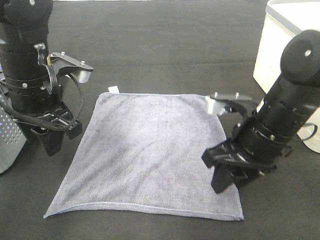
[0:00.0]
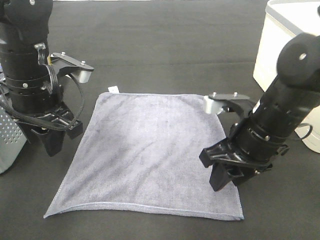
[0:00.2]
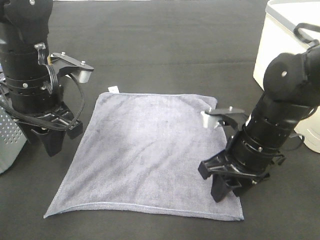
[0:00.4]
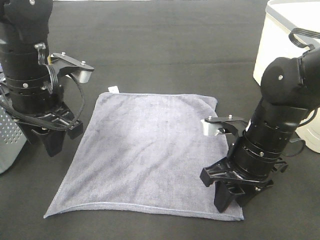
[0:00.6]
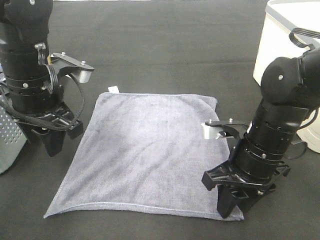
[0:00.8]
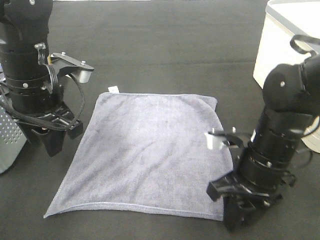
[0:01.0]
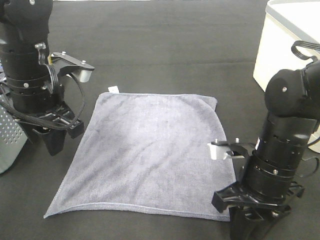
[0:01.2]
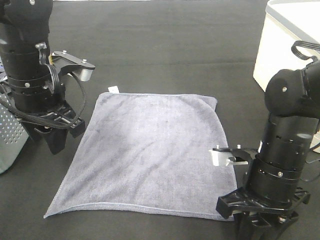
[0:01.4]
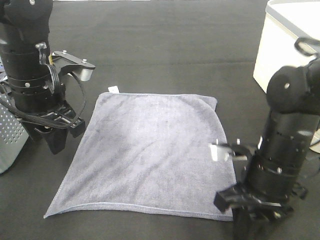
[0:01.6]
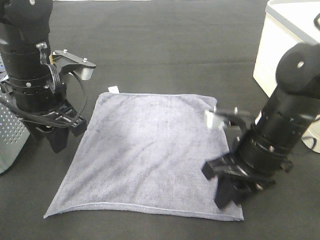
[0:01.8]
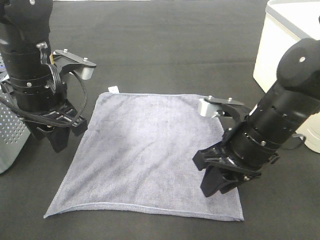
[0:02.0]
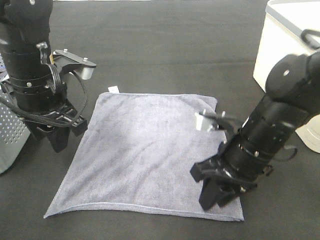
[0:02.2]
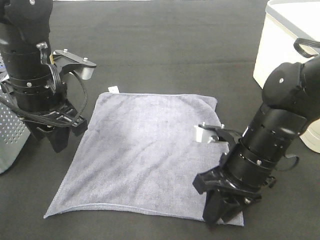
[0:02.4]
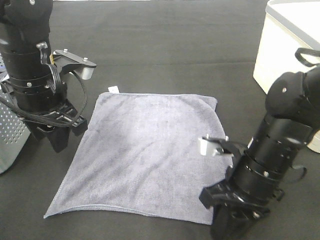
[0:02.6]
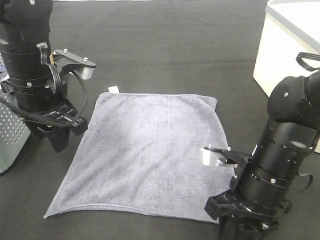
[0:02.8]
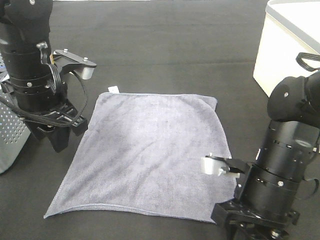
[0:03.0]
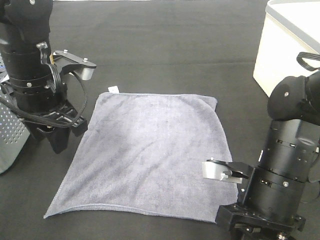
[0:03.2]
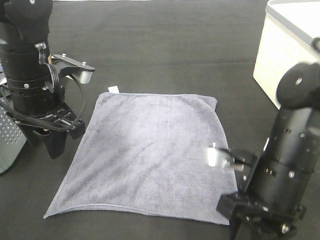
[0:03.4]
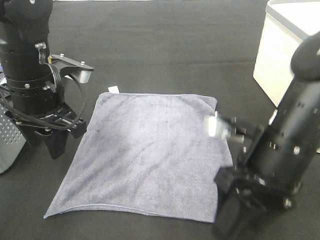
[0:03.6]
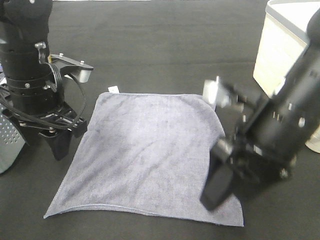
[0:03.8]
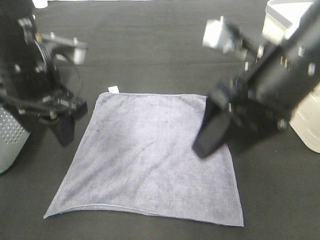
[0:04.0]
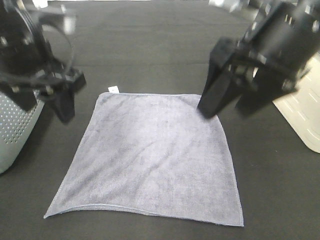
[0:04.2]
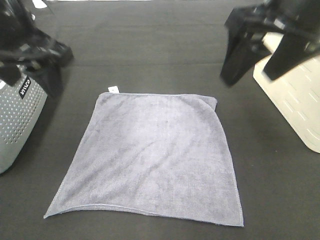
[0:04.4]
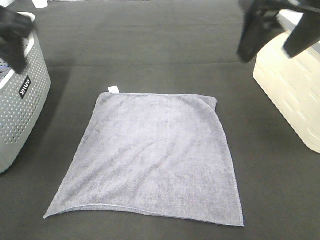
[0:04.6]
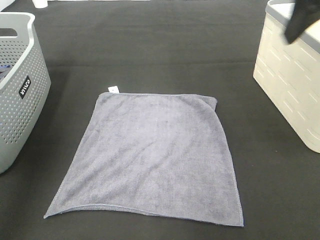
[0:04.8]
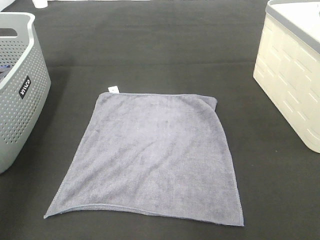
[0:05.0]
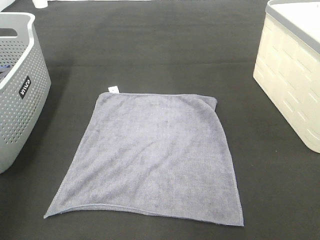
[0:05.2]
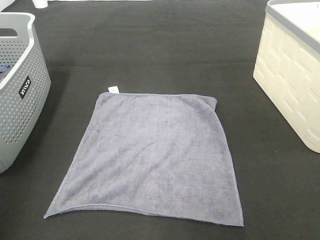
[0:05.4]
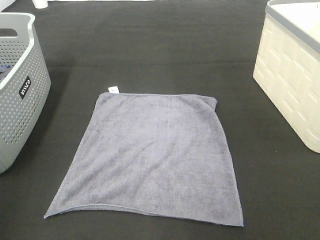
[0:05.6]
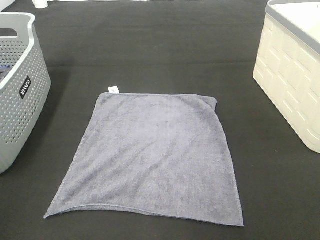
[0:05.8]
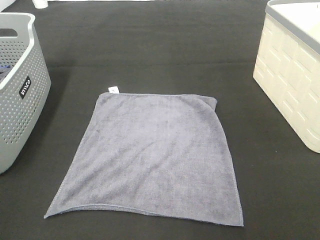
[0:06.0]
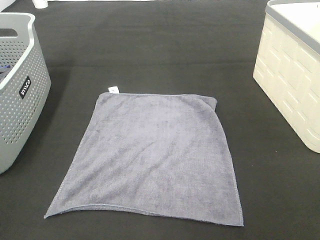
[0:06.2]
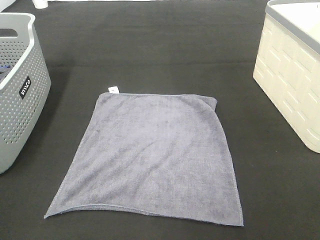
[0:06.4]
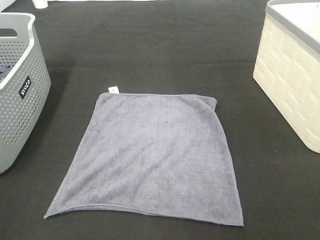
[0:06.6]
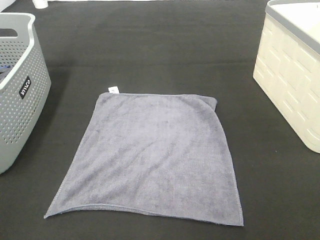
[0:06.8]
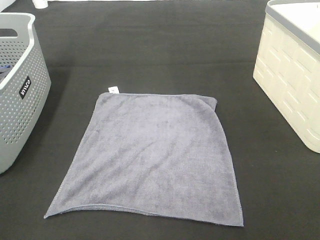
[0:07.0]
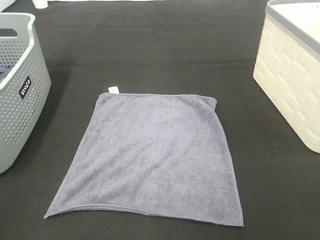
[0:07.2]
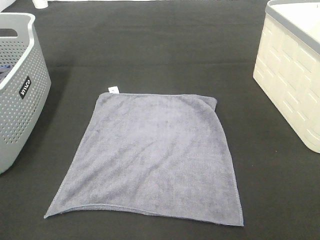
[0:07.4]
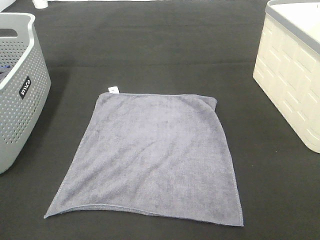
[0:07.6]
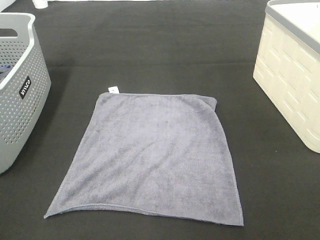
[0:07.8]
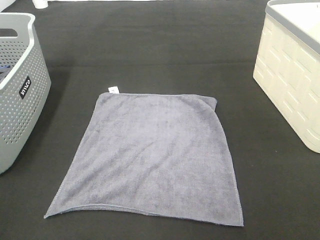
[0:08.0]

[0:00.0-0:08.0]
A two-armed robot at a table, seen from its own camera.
Task of the whole recording: Remove the towel and place it.
0:01.6 to 0:03.2: The grippers stay close to where they were, moving slightly.
0:03.2 to 0:04.8: The left gripper is displaced upward and to the left by some 20 cm. Meanwhile the right gripper goes approximately 25 cm upward, and opens its fingers.
0:04.8 to 0:06.4: The two grippers go about 30 cm backward.

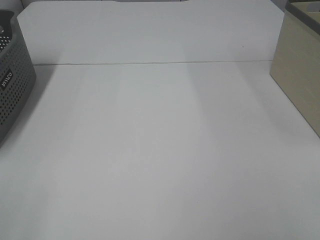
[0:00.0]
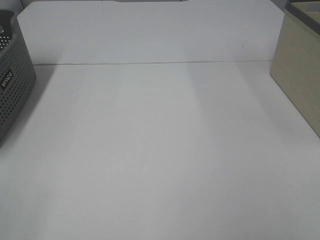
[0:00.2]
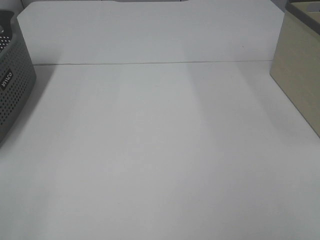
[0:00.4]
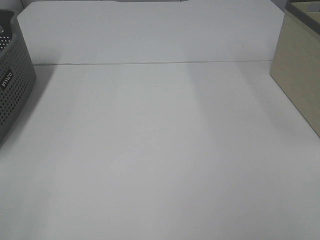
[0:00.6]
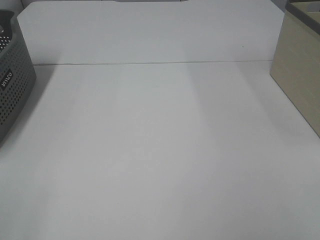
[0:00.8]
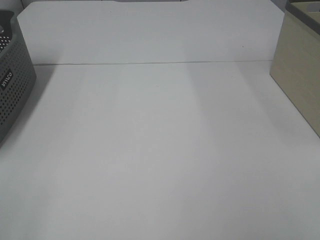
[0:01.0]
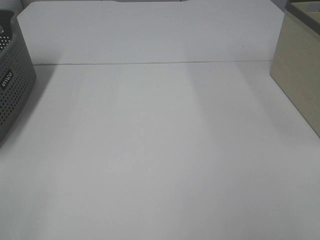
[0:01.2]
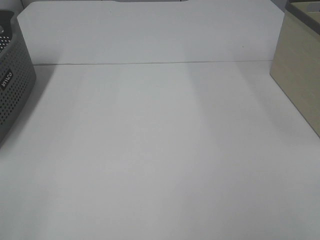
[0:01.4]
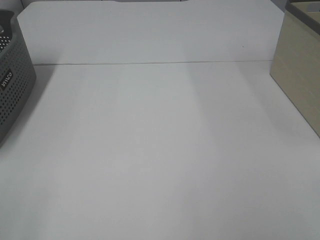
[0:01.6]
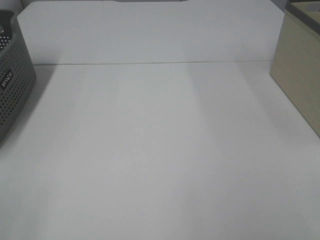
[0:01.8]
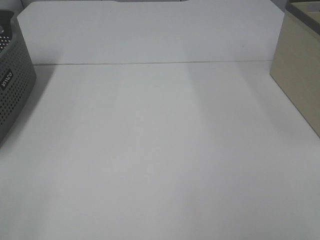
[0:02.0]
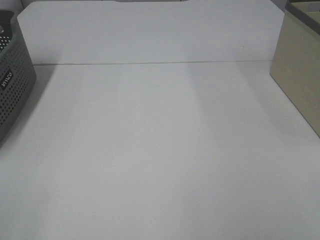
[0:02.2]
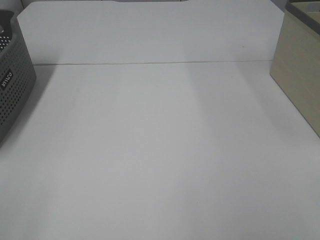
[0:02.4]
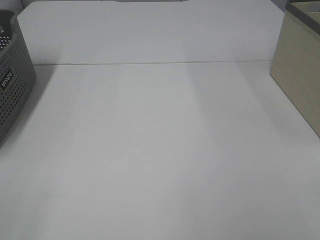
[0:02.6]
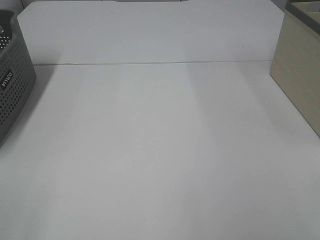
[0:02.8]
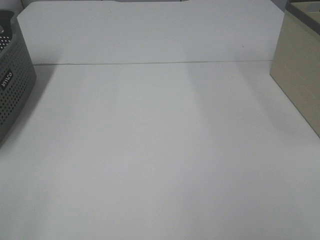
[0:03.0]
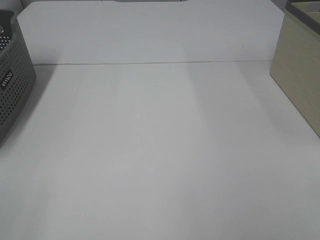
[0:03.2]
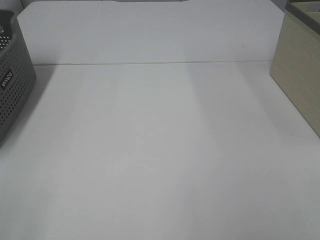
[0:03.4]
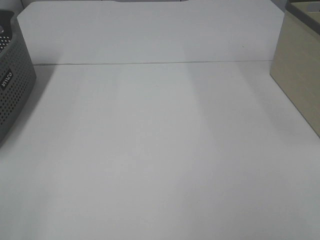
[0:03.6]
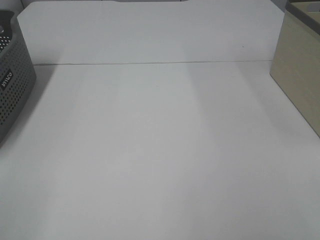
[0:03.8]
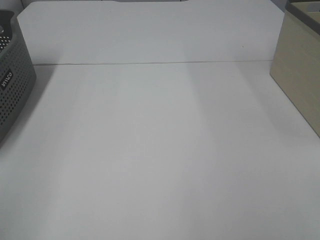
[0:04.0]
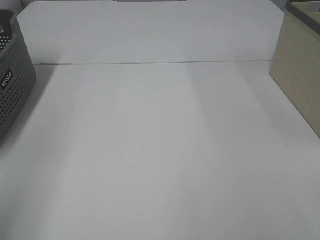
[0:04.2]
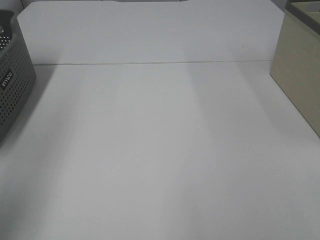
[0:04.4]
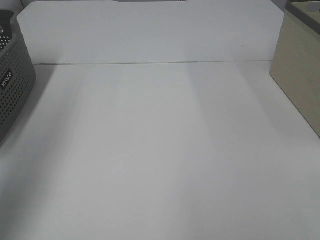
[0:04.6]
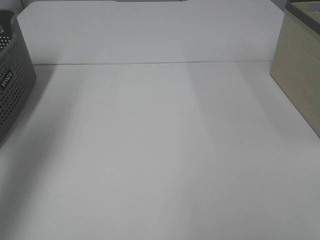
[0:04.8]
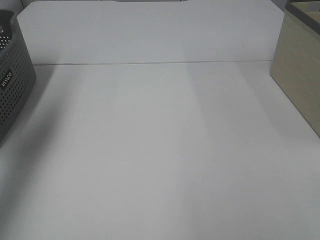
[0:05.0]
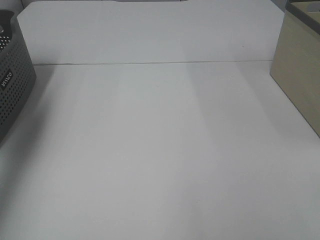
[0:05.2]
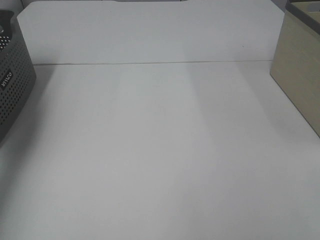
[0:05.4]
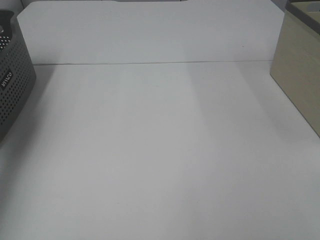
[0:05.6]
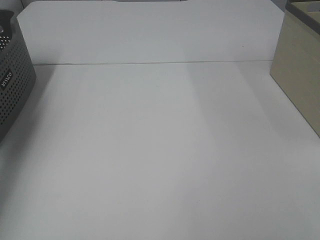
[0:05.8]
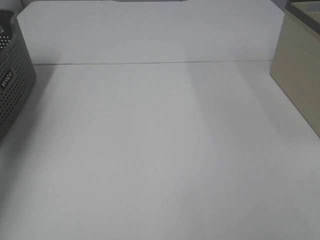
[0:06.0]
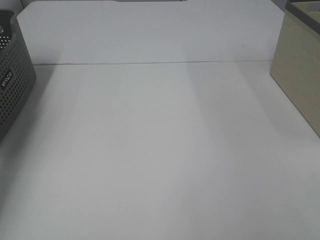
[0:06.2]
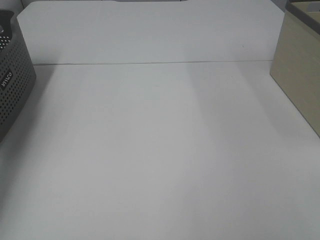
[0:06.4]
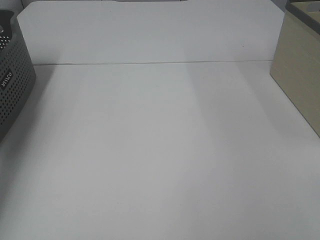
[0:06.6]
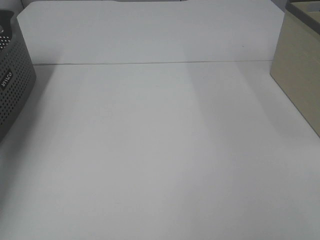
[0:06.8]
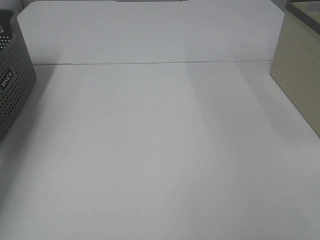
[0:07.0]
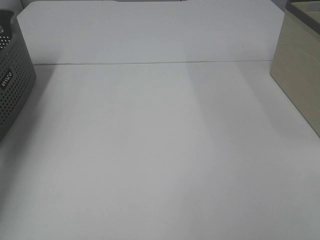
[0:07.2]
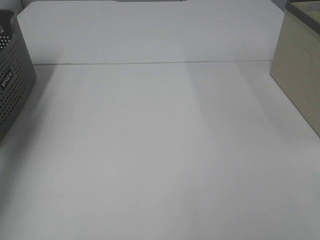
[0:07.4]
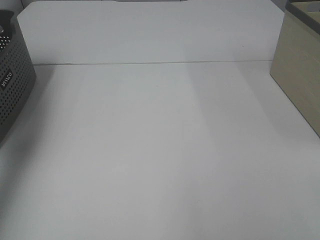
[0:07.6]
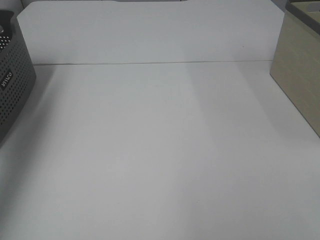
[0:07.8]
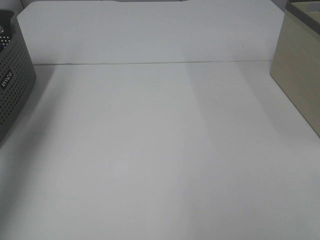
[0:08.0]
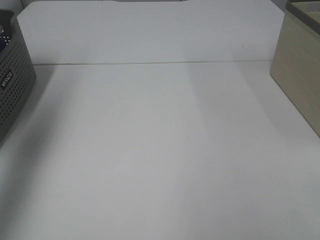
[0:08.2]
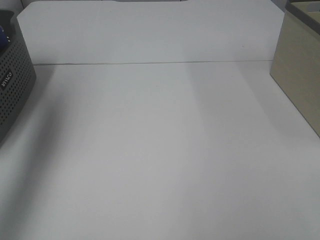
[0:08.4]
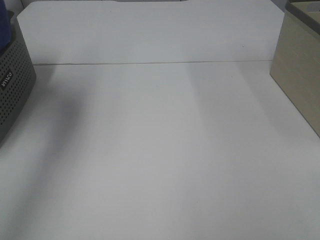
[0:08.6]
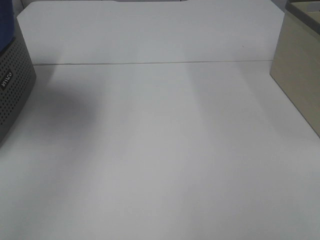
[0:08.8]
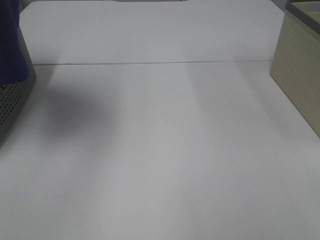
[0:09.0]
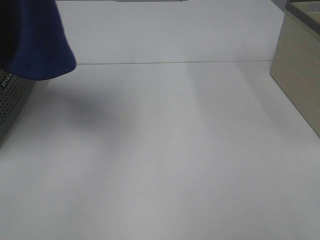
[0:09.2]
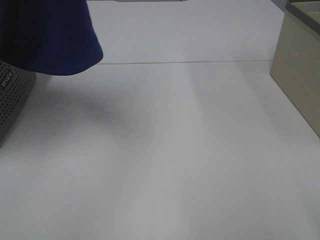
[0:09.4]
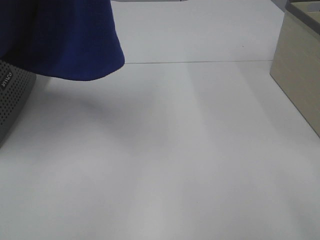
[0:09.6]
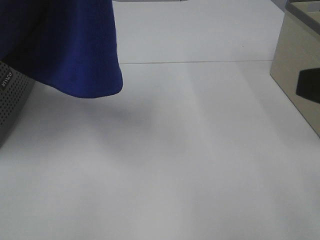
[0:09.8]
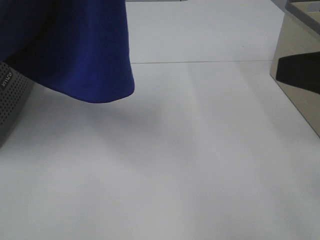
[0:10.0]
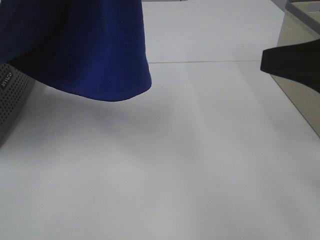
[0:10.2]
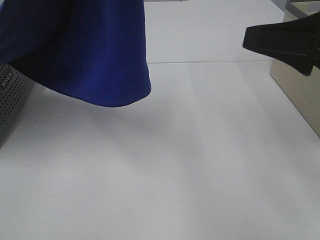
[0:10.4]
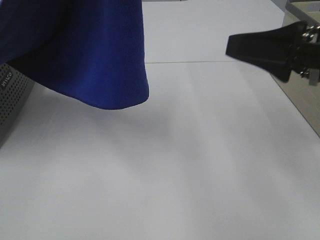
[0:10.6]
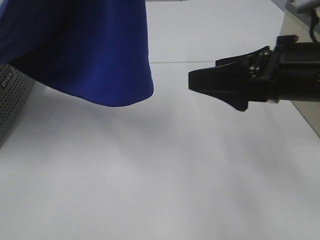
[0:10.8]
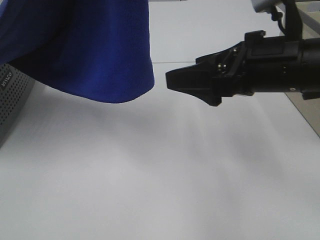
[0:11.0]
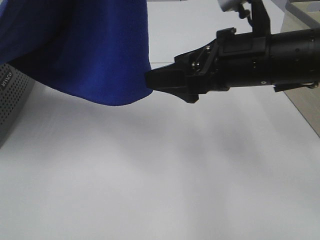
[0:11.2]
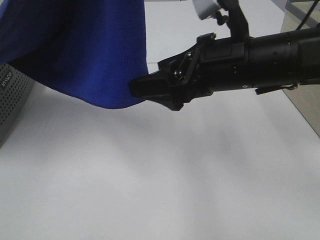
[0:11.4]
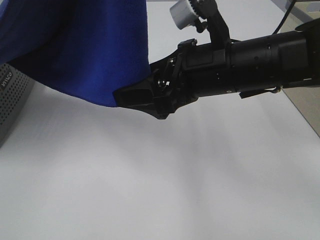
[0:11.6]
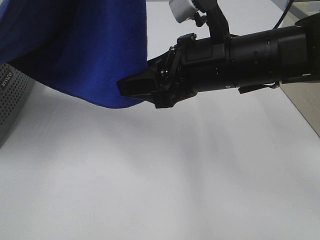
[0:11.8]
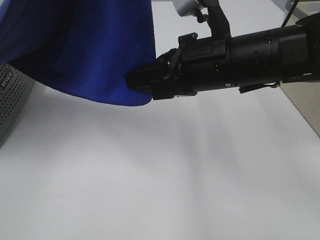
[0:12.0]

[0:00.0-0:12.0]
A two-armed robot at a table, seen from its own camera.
Task of the whole recording: Remove the towel and place it.
0:00.0 to 0:03.0: Both grippers stay put.
0:03.0 to 0:04.4: The left gripper goes about 15 cm forward and upward.
0:04.4 to 0:06.0: The left gripper moves forward and downward, roughly 35 cm.
0:07.6 to 0:09.0: The left gripper heads to the right, upward and backward, covering some 25 cm.
0:09.0 to 0:10.4: The right gripper shifts about 20 cm forward. The left gripper heads to the right, covering about 10 cm.
0:10.4 to 0:12.0: The right gripper moves to the left, approximately 15 cm, and closes.

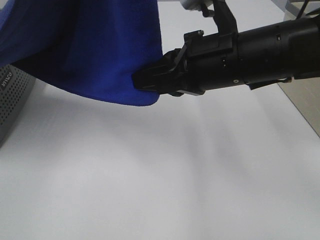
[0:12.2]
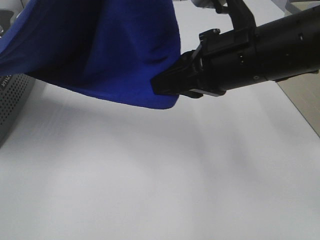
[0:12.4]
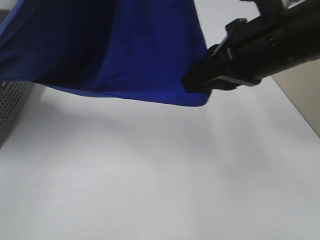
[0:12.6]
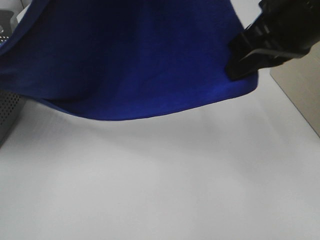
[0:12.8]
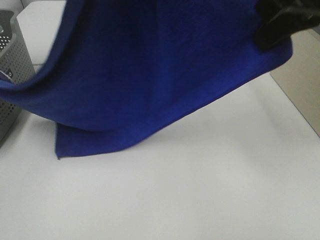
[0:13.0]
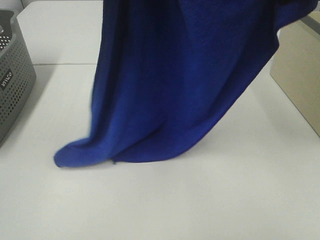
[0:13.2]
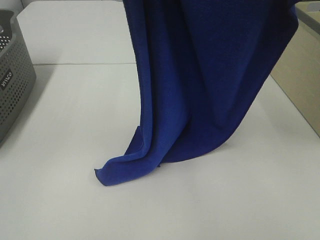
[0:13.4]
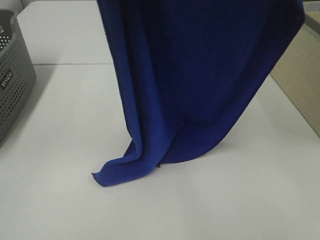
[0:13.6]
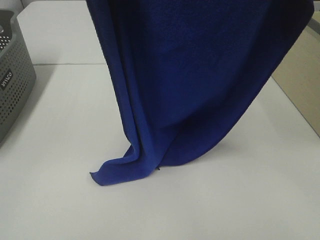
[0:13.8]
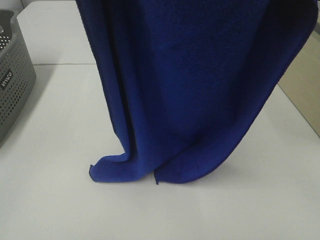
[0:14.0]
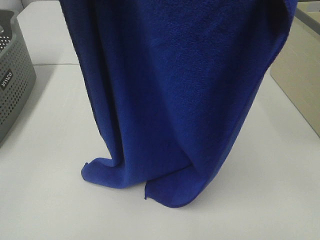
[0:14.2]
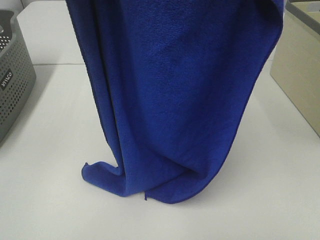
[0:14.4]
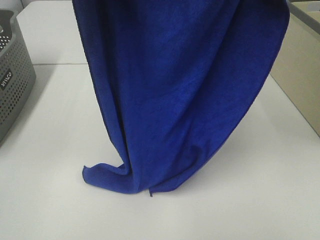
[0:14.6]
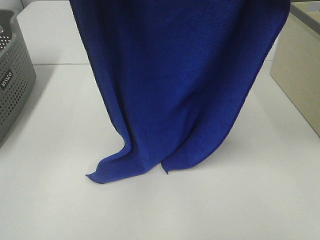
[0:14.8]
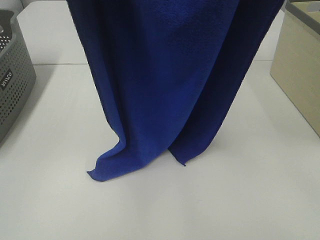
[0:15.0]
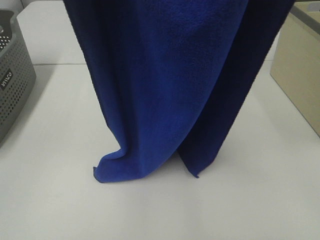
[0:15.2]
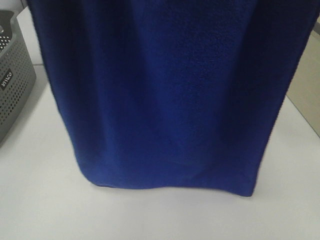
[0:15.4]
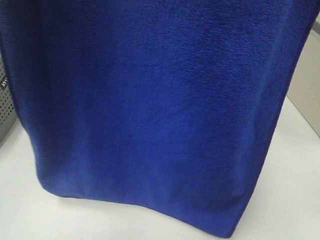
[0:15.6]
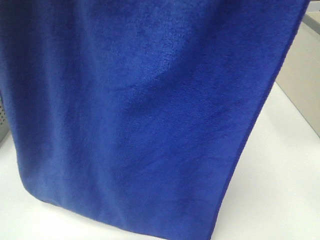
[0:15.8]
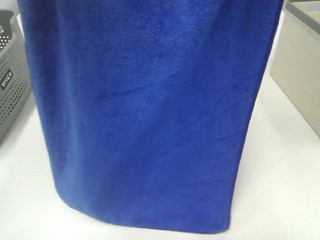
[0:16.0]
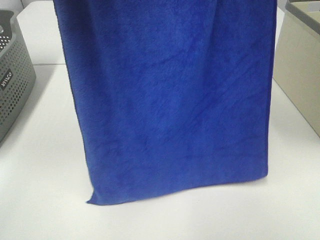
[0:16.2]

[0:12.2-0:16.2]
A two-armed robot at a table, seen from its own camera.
Task of the whole recording: Remove the towel and place it.
0:12.2 to 0:13.6: The right gripper shifts some 25 cm upward and to the right.
0:14.8 to 0:16.2: The two grippers go roughly 5 cm forward.
